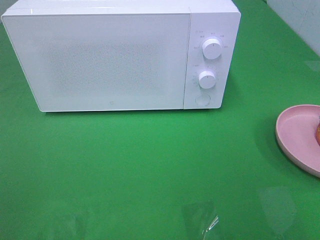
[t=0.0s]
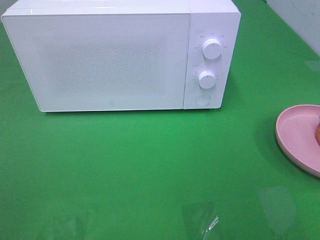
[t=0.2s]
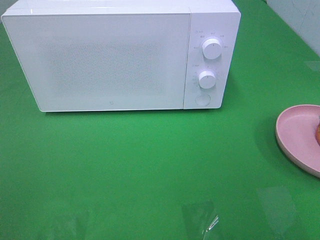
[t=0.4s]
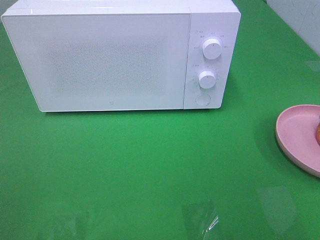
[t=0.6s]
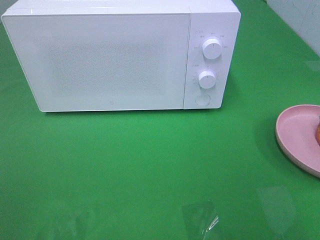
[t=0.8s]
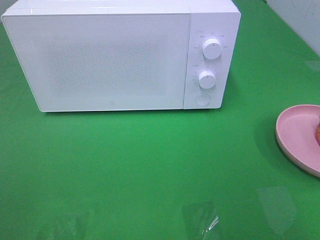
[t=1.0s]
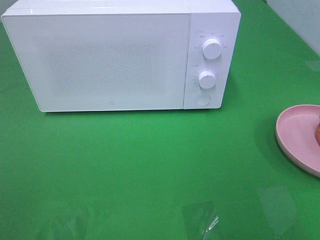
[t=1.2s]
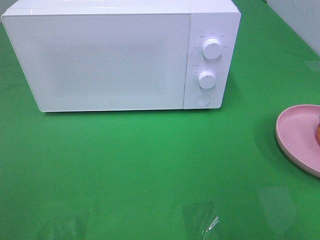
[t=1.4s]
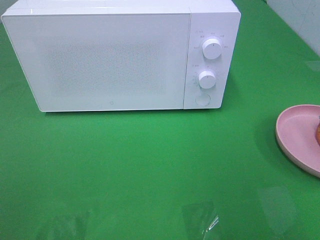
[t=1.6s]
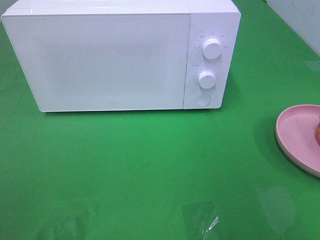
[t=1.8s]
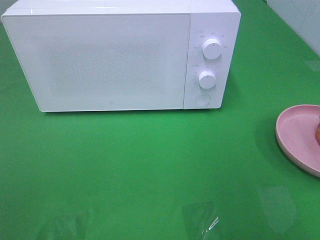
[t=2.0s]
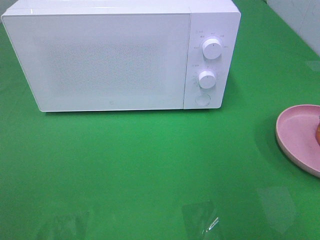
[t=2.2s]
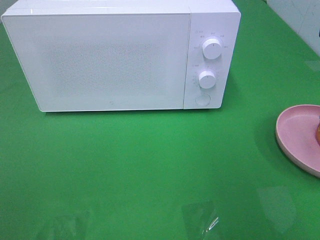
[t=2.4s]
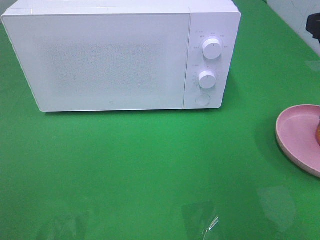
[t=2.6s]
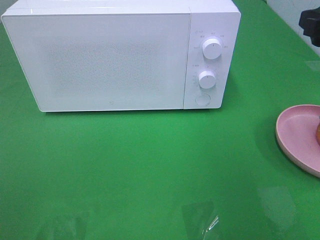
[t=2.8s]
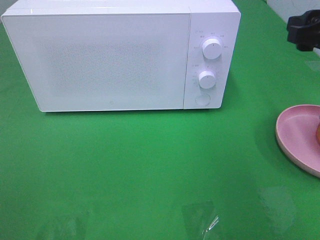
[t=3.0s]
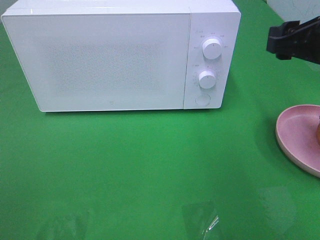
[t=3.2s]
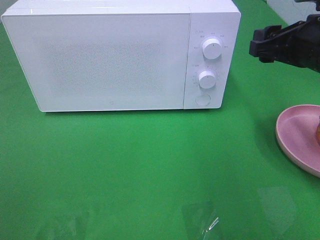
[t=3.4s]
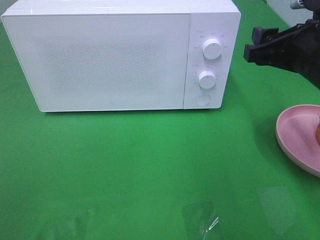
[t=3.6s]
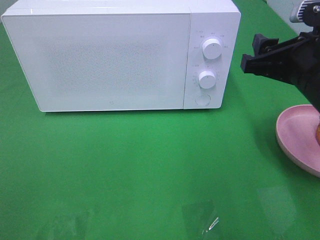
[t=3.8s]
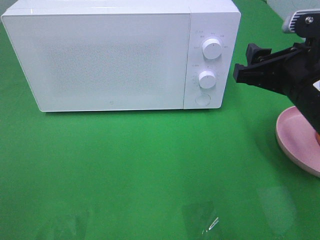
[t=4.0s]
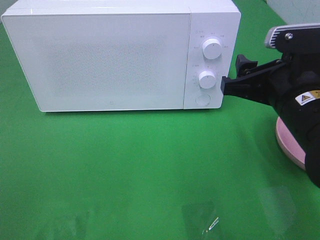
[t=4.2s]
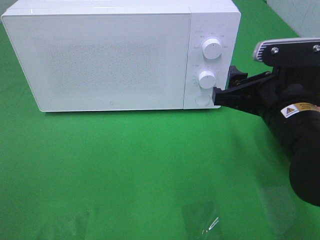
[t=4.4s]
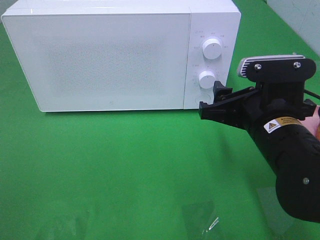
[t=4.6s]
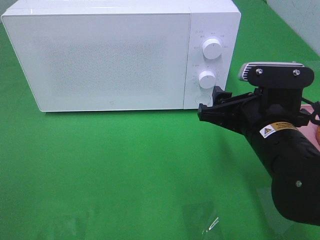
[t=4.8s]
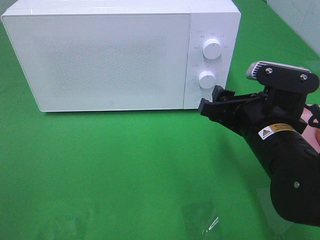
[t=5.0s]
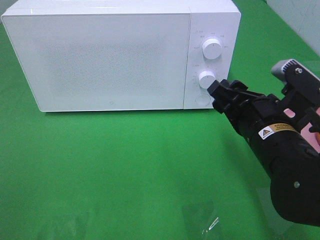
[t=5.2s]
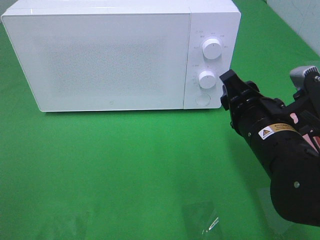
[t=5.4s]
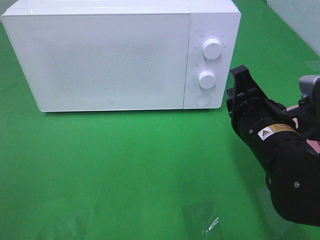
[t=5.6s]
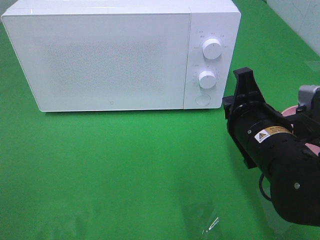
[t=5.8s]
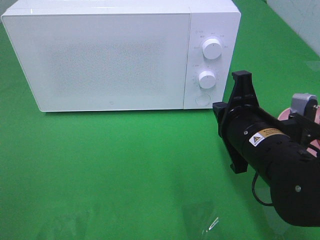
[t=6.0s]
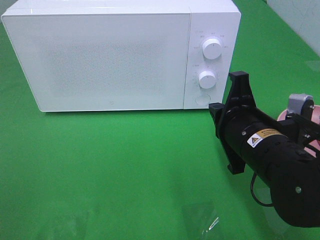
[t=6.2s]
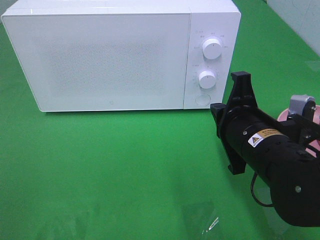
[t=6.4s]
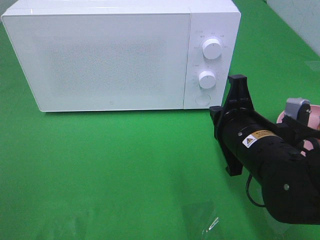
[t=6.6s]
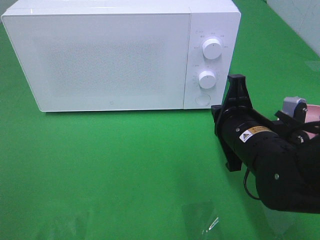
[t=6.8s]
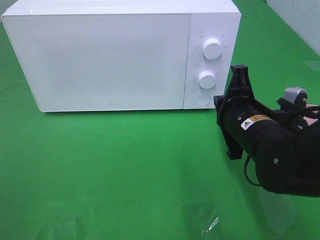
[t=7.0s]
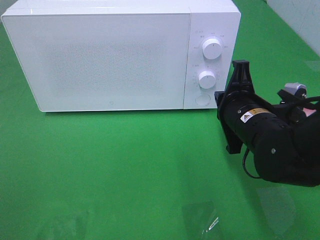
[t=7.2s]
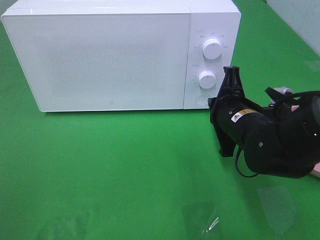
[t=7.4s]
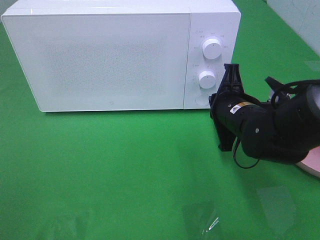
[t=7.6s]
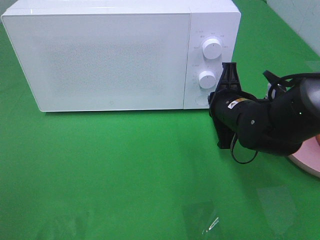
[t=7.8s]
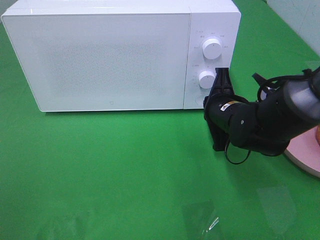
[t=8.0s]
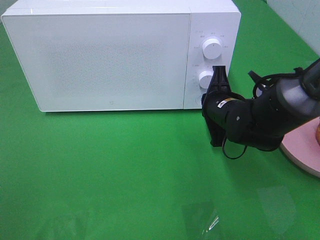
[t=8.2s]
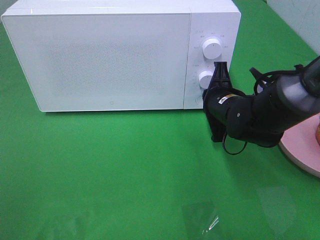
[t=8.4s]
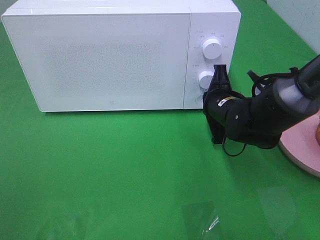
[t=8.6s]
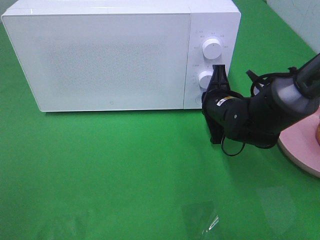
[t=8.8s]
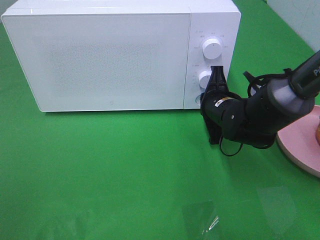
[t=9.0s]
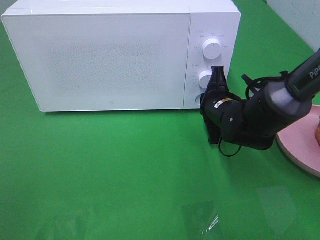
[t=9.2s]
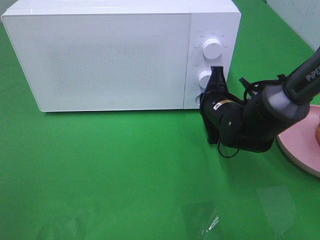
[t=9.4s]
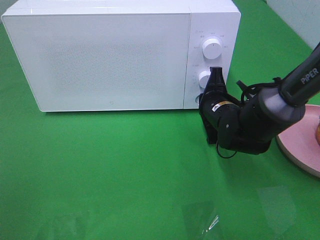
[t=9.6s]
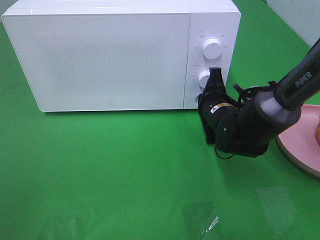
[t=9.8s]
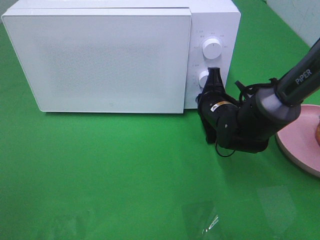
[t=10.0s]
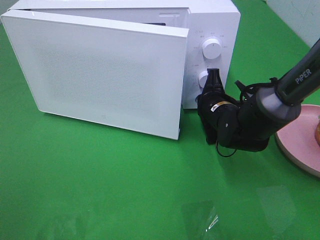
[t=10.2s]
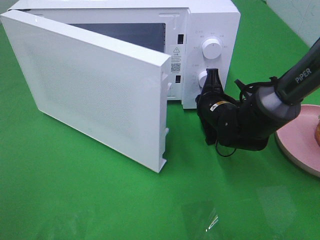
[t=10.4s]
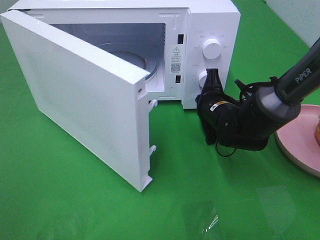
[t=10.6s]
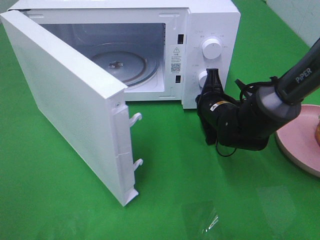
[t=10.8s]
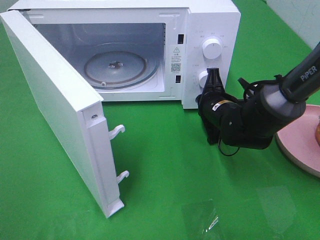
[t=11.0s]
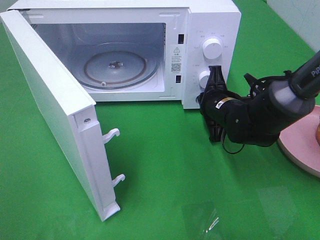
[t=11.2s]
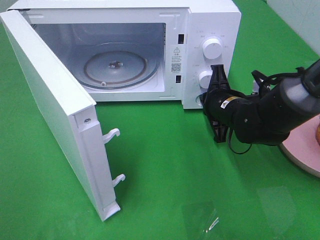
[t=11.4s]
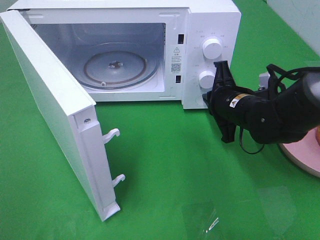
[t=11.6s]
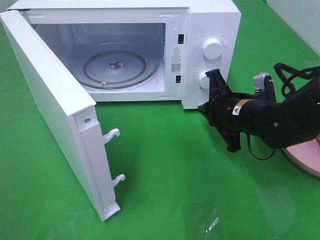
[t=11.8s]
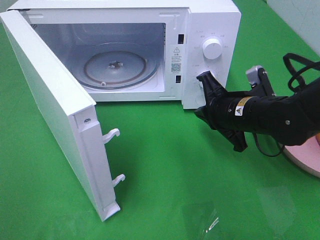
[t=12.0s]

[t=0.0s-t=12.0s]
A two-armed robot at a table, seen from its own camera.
Task of the whole recording: Heat the burger.
Step, t=0.0s to t=11.4s: Right hand: press the switch.
t=1.6s to t=3.0s: The right gripper is displaced forward by approximately 15 cm.
t=3.0s to t=4.4s: The right gripper goes about 15 cm to the left and downward.
t=4.4s to t=6.0s: The right gripper closes its fingers.
t=6.0s to t=7.6s: The right gripper is displaced forward by approximately 10 cm.
t=7.6s to t=9.0s: The right gripper moves forward, some 5 cm.
t=9.0s to t=10.4s: The grippers move only a little.
t=10.4s to t=12.0s: The right gripper is displaced backward and upward by some 10 cm.

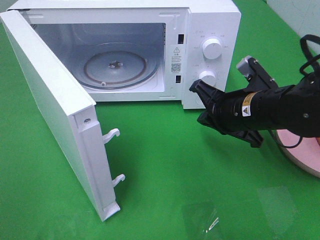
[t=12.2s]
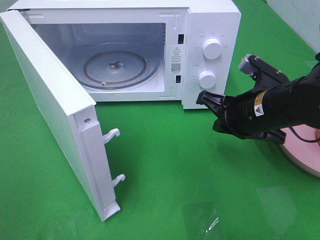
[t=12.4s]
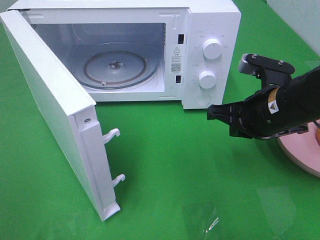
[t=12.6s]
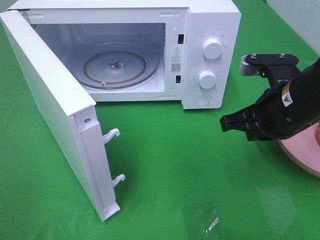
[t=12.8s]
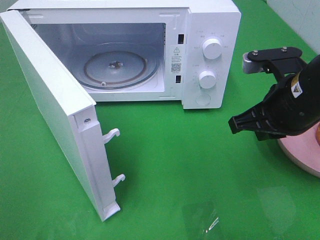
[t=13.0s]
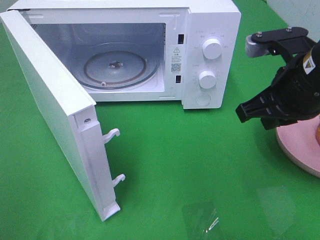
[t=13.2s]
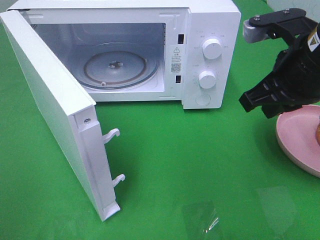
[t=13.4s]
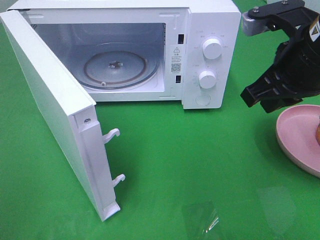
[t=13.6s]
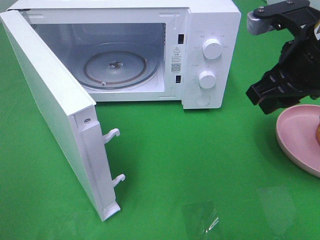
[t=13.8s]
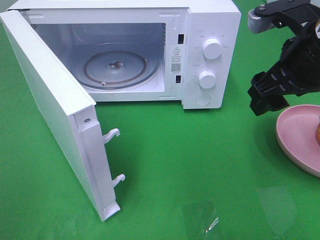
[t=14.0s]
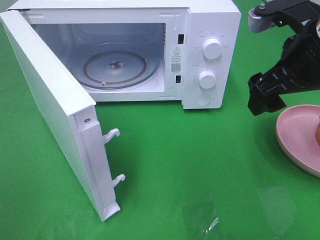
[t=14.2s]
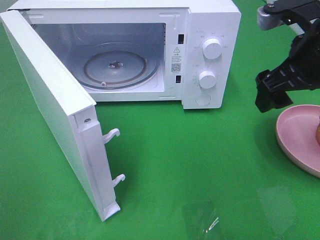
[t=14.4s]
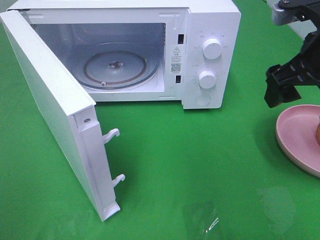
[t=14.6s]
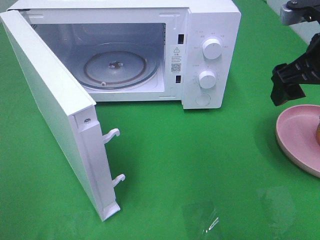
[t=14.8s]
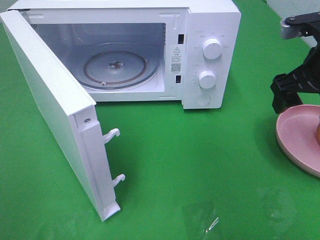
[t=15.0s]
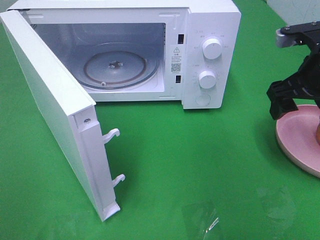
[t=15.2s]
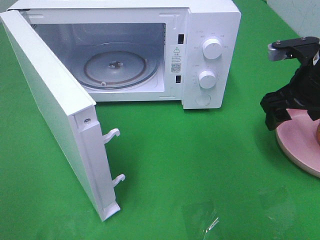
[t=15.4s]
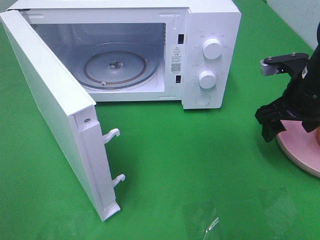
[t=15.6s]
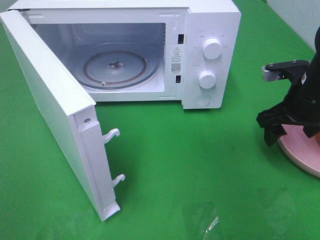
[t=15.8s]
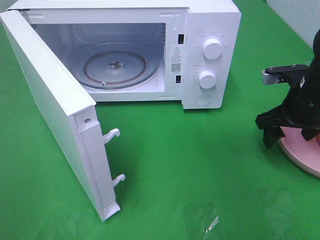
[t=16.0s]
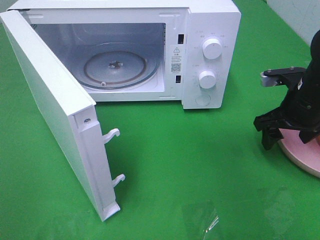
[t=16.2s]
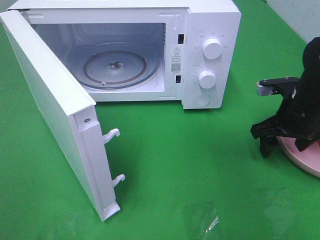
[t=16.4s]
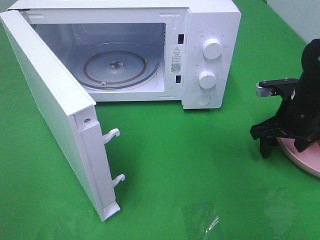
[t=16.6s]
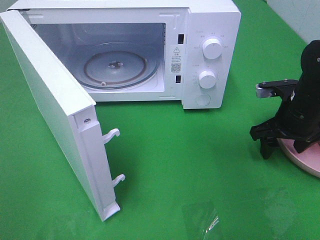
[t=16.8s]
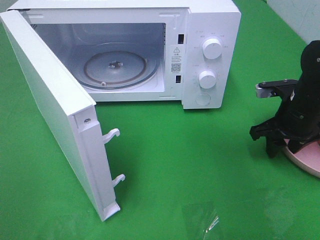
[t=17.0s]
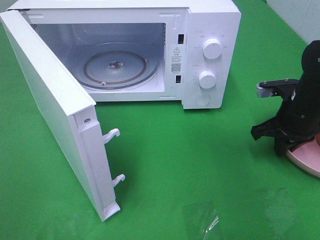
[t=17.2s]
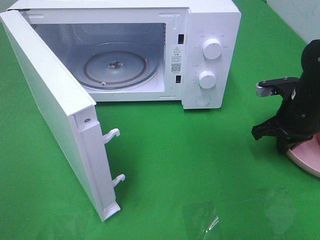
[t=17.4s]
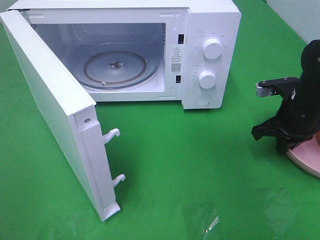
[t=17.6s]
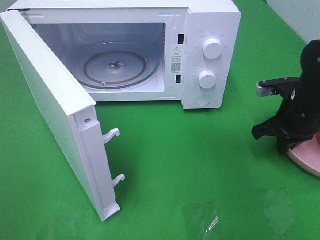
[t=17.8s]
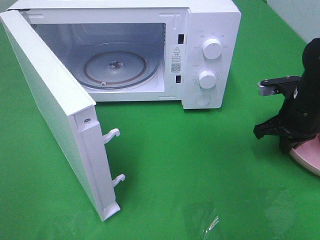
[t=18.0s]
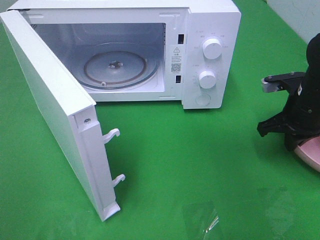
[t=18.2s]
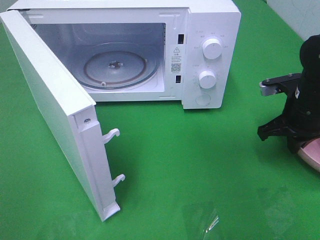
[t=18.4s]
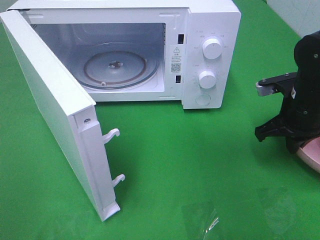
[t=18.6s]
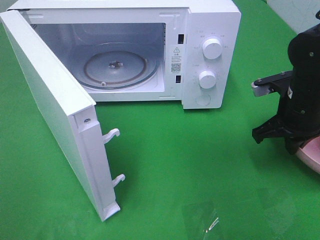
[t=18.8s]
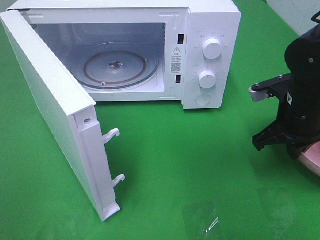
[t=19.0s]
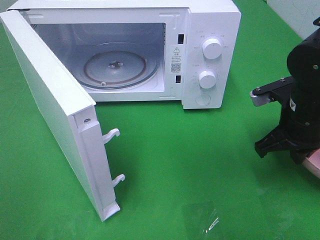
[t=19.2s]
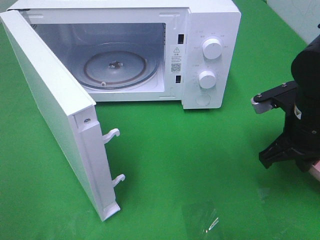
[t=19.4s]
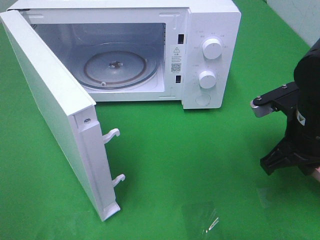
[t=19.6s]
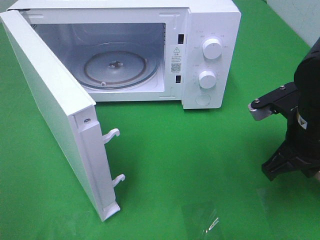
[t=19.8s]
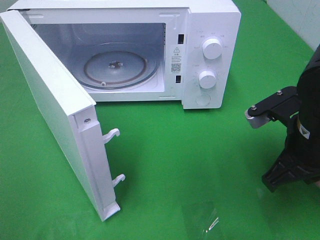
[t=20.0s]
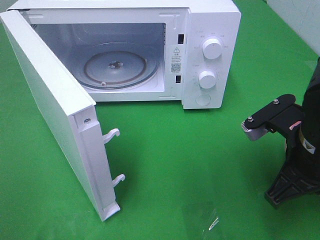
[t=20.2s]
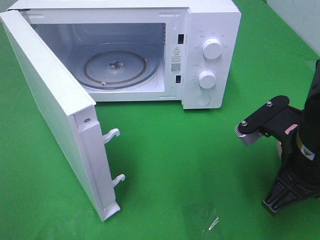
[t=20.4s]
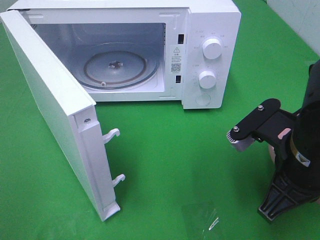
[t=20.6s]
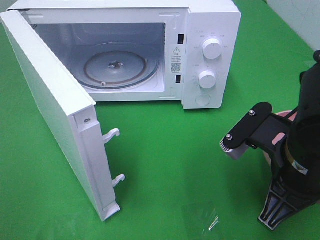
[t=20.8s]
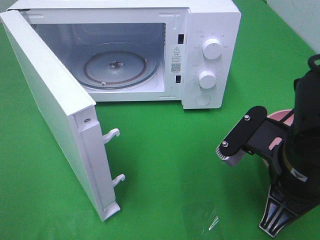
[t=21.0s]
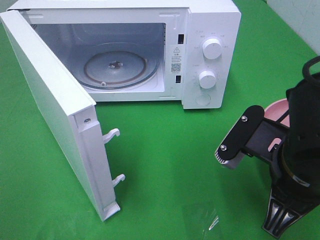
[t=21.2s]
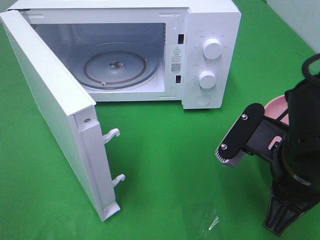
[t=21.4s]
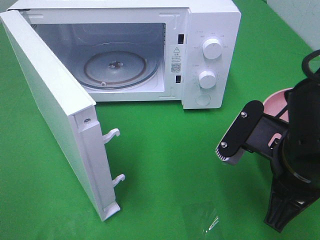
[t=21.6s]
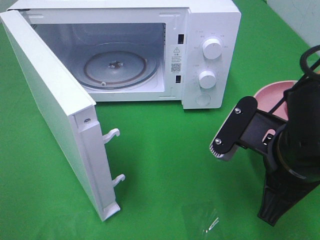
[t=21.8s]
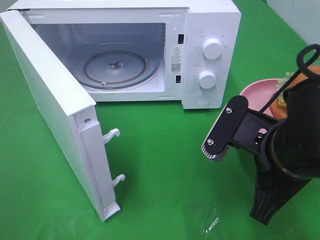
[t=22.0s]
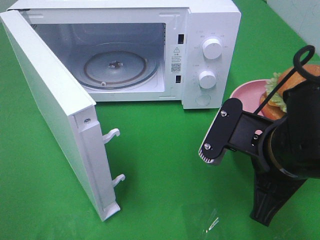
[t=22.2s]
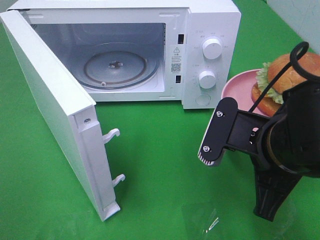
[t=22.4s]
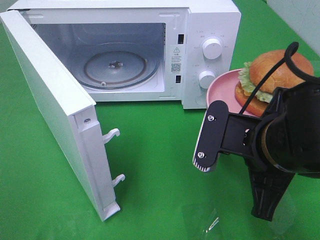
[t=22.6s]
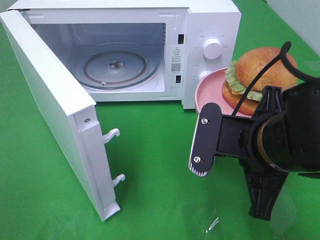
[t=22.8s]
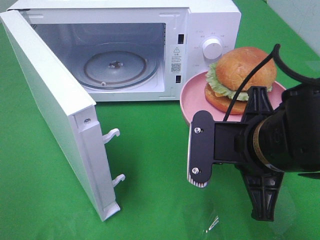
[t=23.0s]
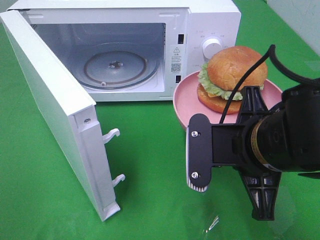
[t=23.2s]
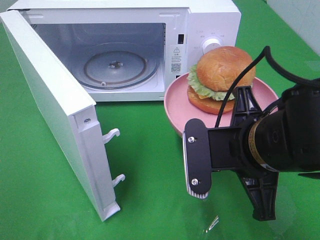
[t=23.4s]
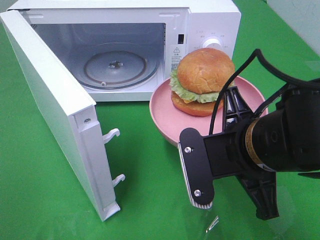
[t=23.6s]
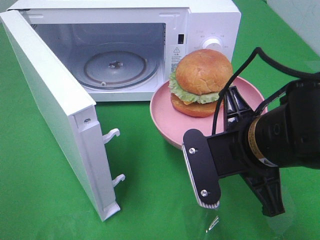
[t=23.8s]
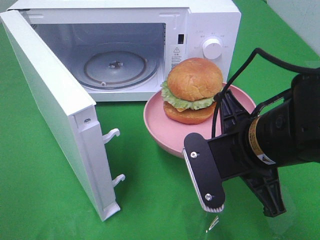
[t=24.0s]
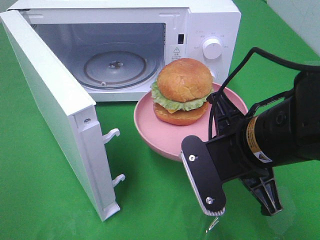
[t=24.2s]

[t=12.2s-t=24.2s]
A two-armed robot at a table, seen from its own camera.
Task of the whole recording: Heat the burger.
Step, t=12.2s to t=17.4s: Right hand: grab the plate with the hamburger.
t=12.2s to t=13.8s: The right gripper goes approximately 10 cm upward, and opens its fingers.
t=13.8s to t=15.2s: The right gripper is displaced to the right and downward by roughly 10 cm, and opens.
t=15.2s to t=16.6s: The right gripper travels downward by roughly 10 cm.
t=16.6s to t=18.2s: The right gripper closes.
t=18.2s to t=19.8s: The right gripper shifts approximately 10 cm backward and to the left.
t=19.8s to t=21.2s: The right gripper heads backward and to the left, covering roughly 10 cm.
